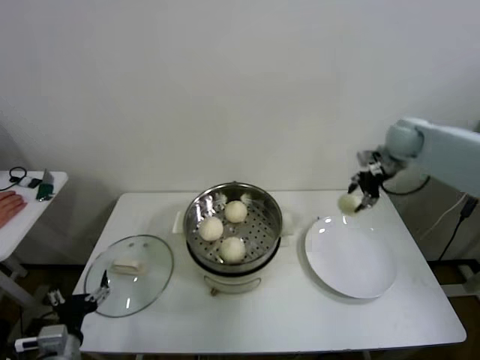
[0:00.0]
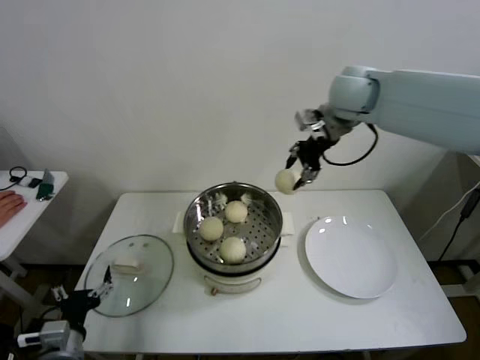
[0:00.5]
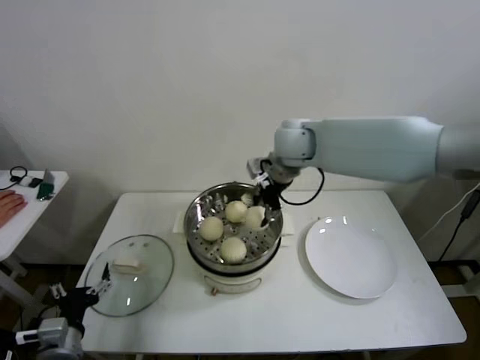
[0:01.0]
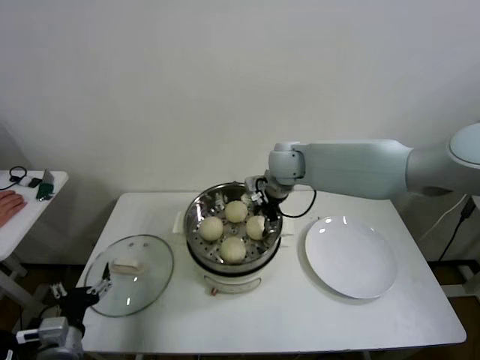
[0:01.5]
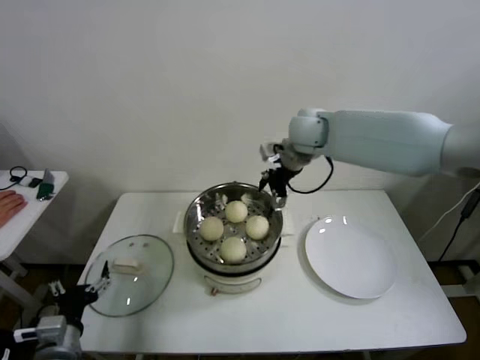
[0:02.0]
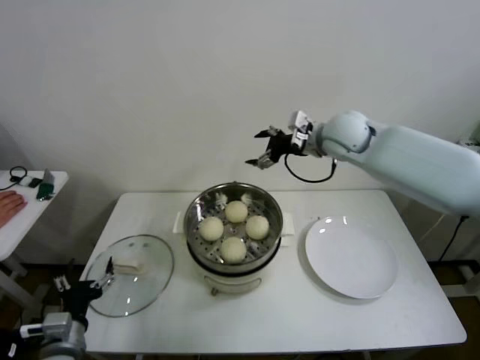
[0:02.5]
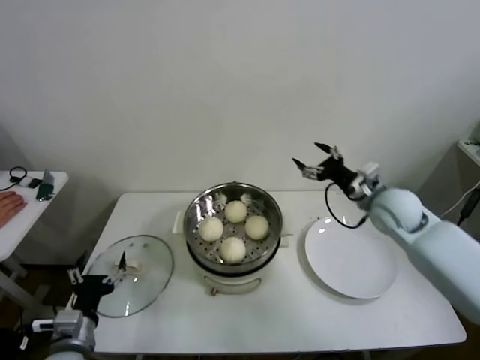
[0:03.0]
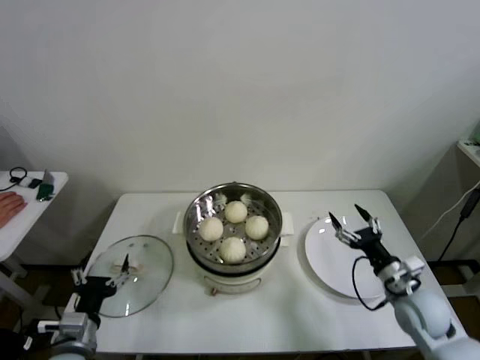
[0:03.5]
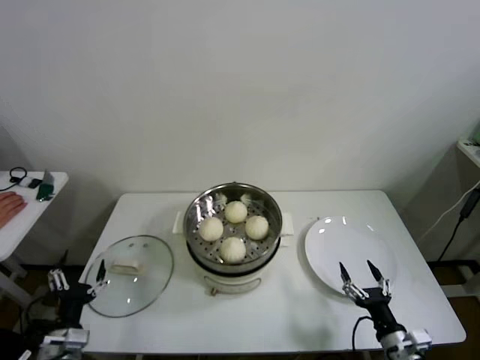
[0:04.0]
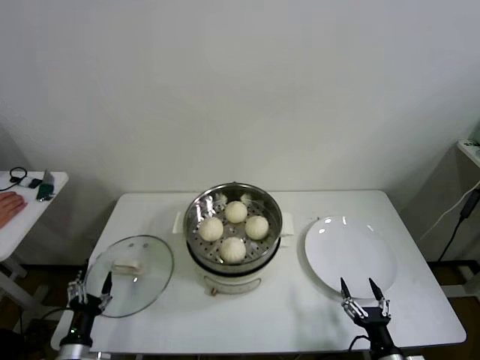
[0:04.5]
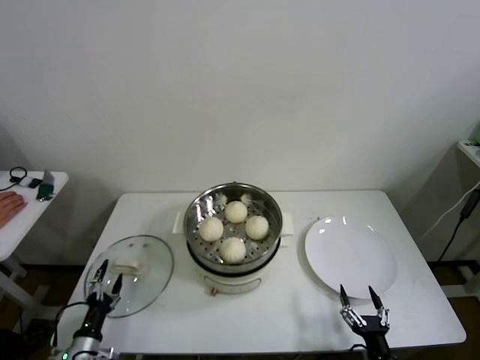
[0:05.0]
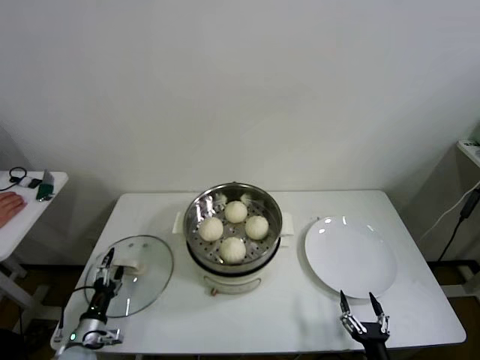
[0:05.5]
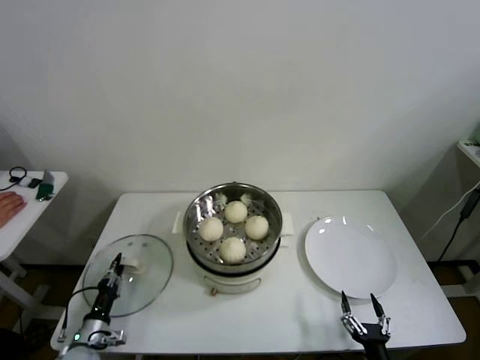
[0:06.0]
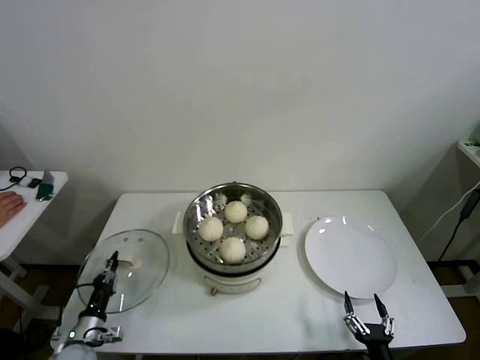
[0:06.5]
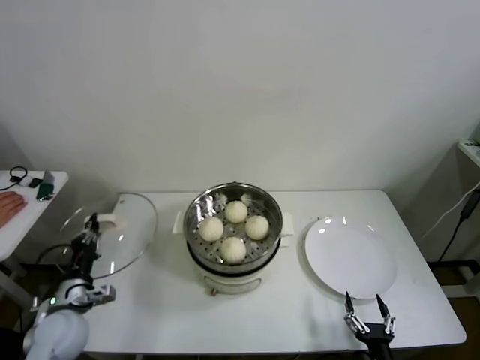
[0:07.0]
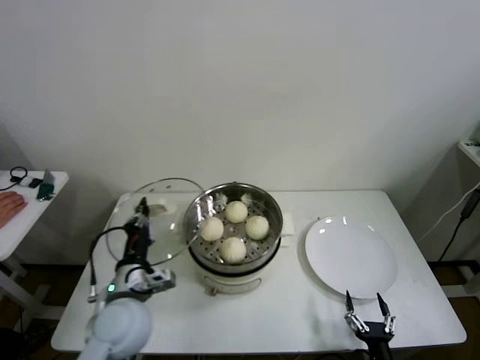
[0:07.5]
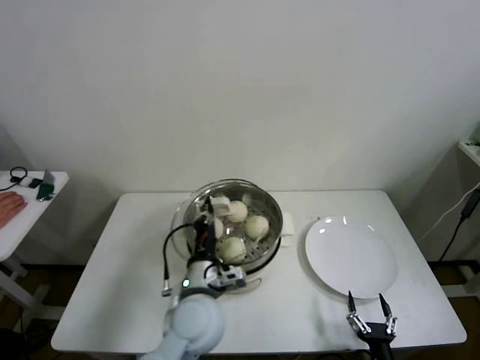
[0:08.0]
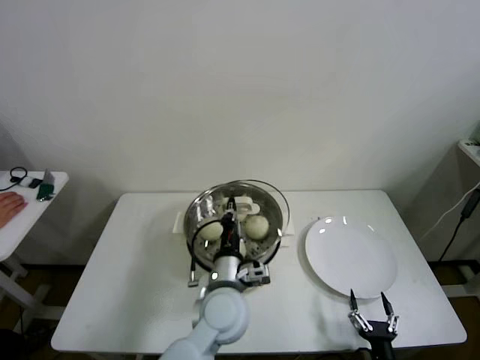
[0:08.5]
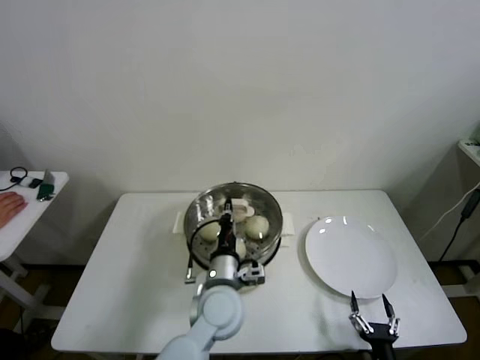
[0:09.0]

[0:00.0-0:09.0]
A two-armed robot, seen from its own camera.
Step, 0:00.0 to 0:01.5: Place the baozi on the steamer with right gripper.
Step, 0:02.0 to 0:06.0: Grasp the pot lid with left gripper.
0:00.0 to 0:02.0: The right gripper heads to the left, covering about 25 cm, and opens its fingers.
0:02.0 to 0:04.5: The right gripper moves backward, downward and to the right, approximately 60 cm. The left gripper moves downward, some 10 cm.
0:04.5 to 0:07.0: The left gripper is displaced upward and forward by about 15 cm, and closes its fingers.
0:07.0 to 0:09.0: The left gripper travels to the right by roughly 35 cm.

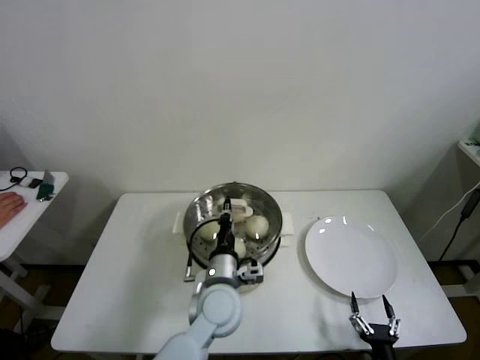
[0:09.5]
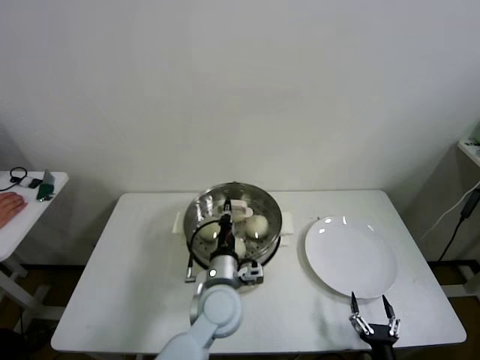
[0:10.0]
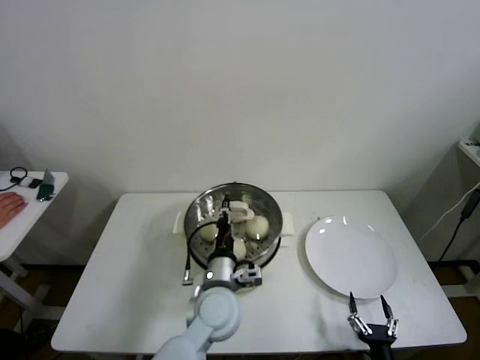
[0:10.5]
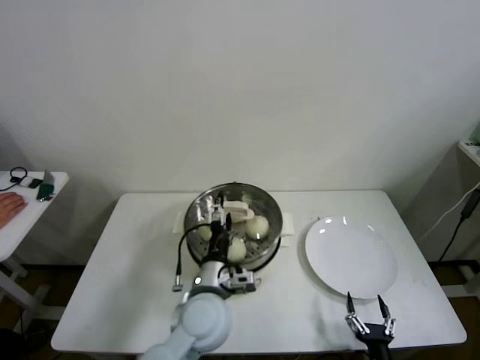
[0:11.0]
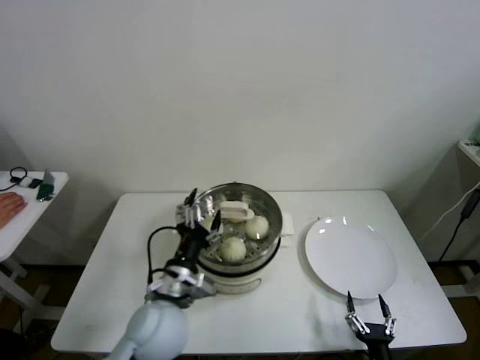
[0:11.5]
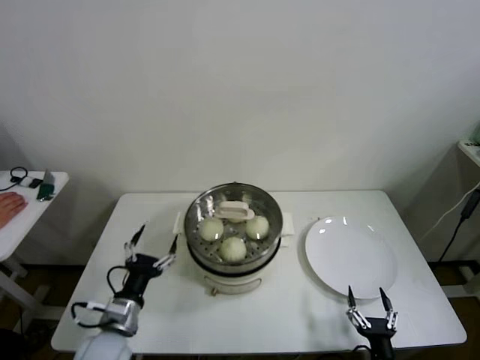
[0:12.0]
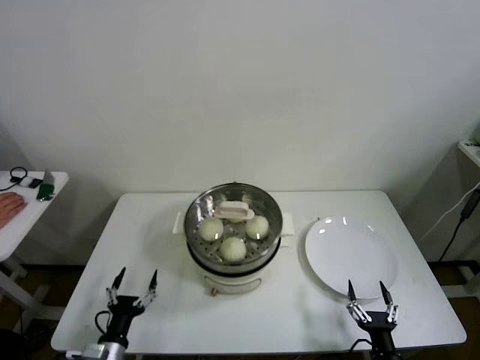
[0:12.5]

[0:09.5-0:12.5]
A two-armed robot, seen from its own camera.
0:09.5 to 0:11.0: The left gripper opens up.
0:11.0 to 0:12.5: The left gripper heads to the left, downward and backward, covering about 30 cm.

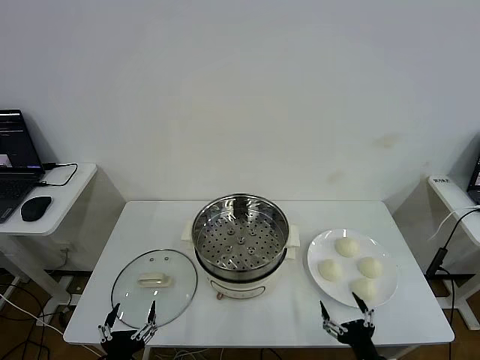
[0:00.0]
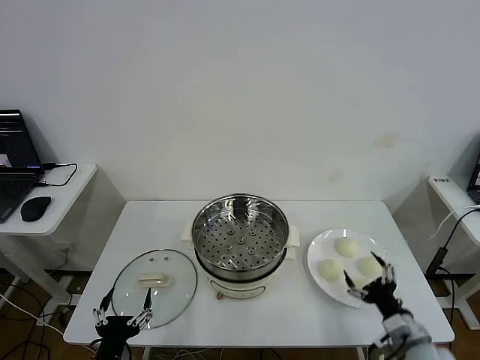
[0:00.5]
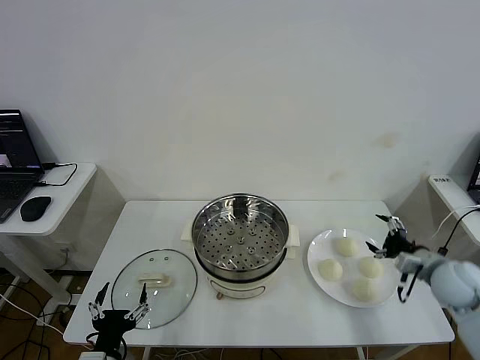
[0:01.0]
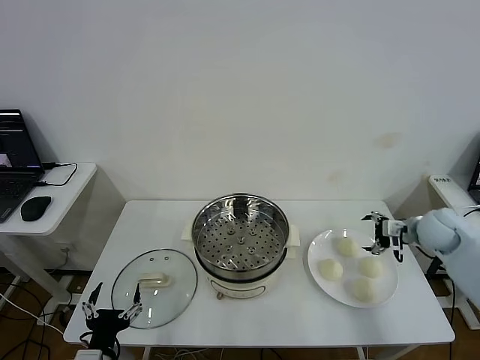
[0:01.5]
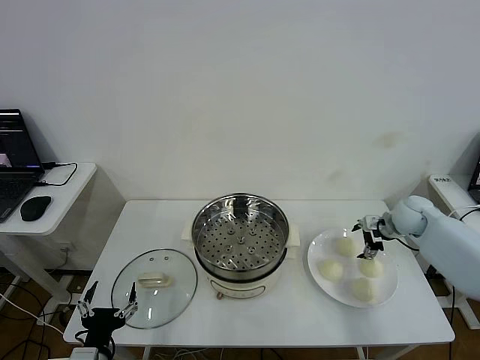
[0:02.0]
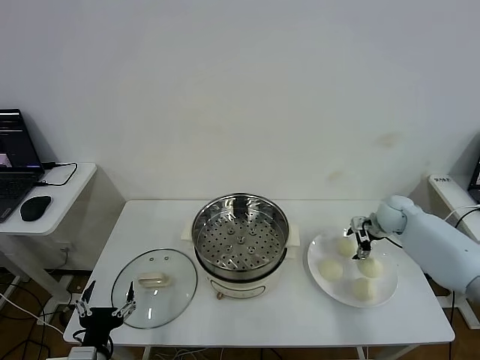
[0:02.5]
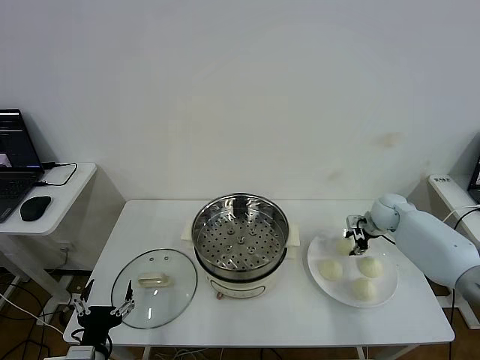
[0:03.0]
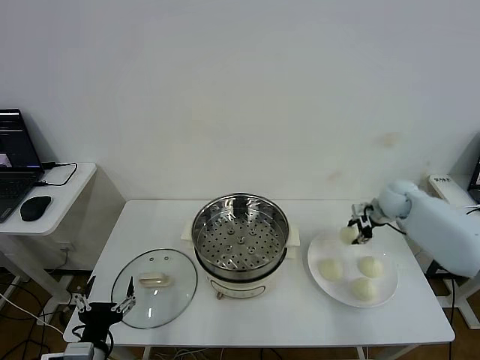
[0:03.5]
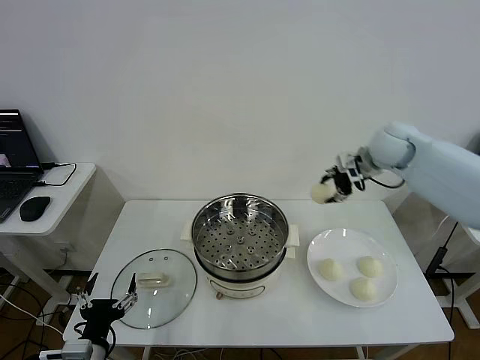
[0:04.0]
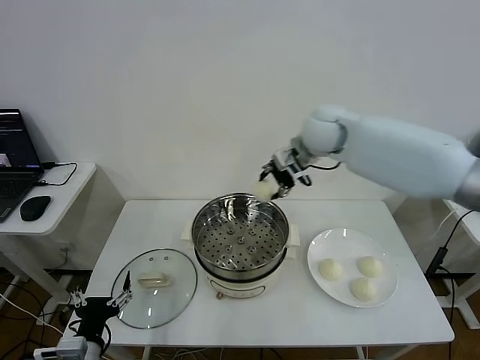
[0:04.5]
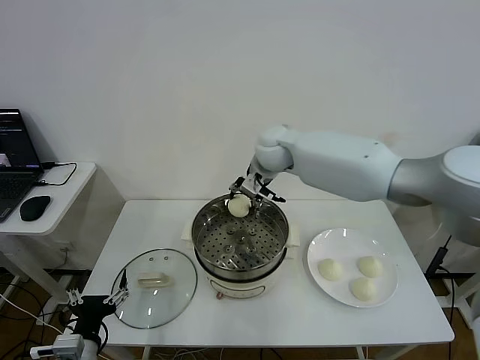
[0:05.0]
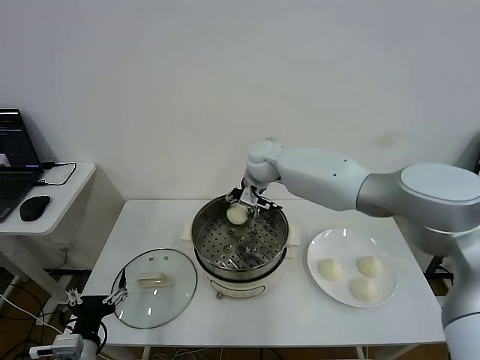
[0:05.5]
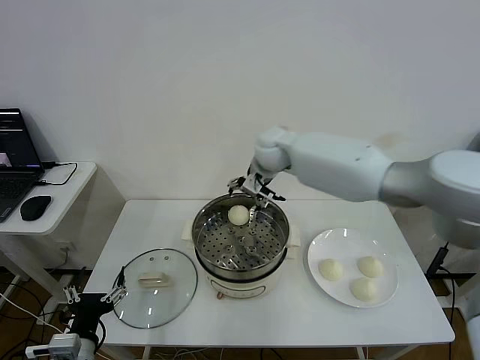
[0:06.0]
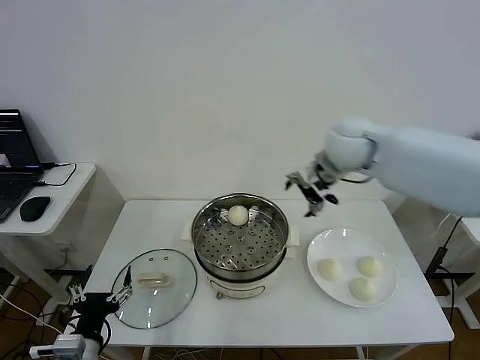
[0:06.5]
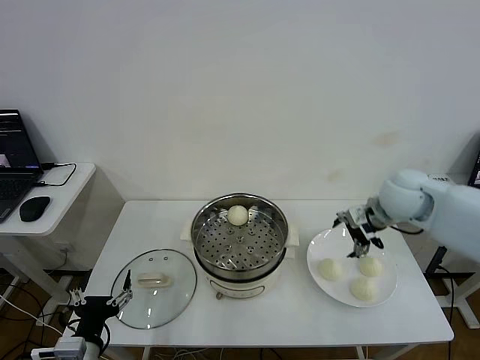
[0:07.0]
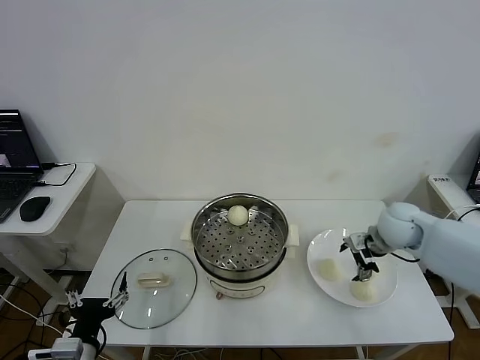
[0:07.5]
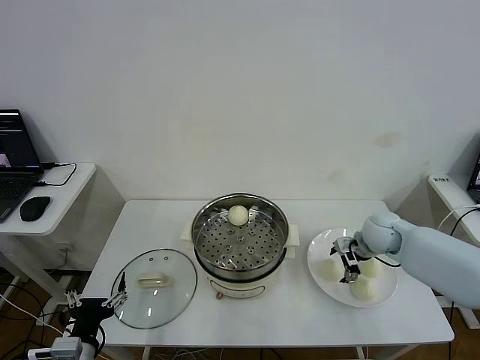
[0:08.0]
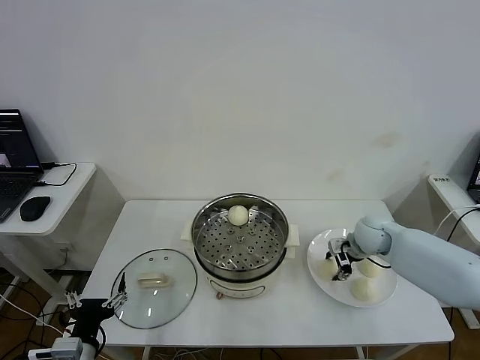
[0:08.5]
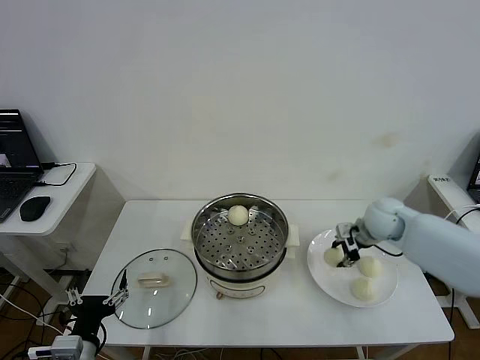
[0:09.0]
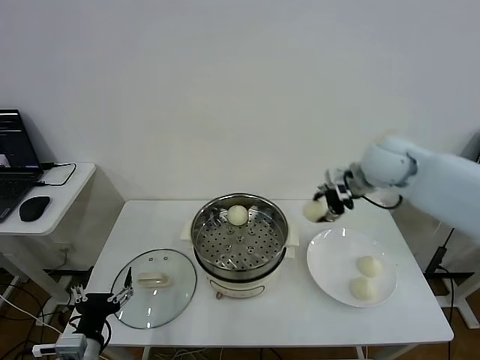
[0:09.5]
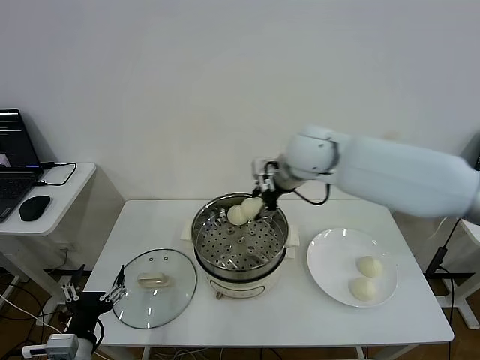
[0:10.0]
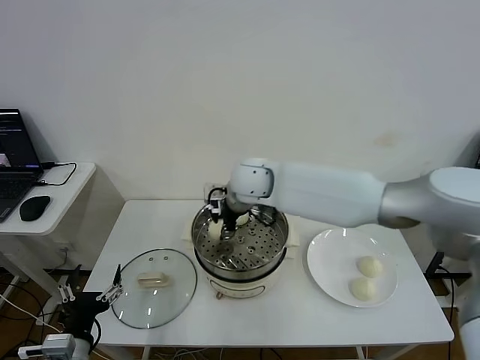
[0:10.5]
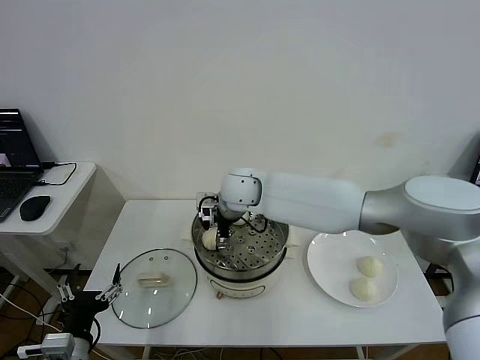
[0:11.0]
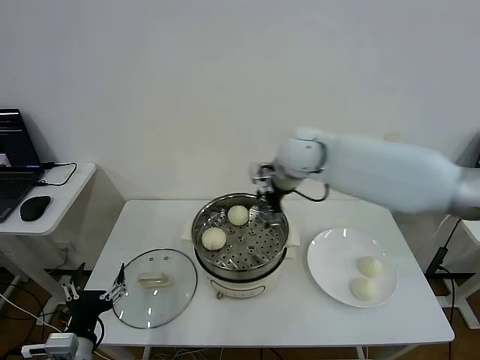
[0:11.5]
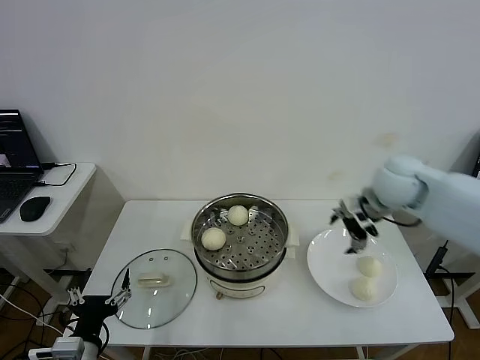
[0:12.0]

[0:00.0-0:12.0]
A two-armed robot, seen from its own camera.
Step, 0:00.0 to 0:02.5: Grasp the baozi in the plate with right gripper.
Step, 0:03.0 to 0:05.5: Place the baozi on the steamer with right gripper.
Step, 0:06.0 to 0:08.0: Grasp the baozi in the plate with right gripper.
Step, 0:09.0 to 0:10.5: Place the baozi on the steamer with right gripper.
0:02.0 to 0:04.0: The right gripper heads upward and to the left, covering some 25 cm, and closes up.
0:04.0 to 0:06.0: The right gripper is displaced to the left by some 20 cm, and opens its fingers.
0:06.0 to 0:08.0: The right gripper travels to the right, downward and backward by about 35 cm.
0:08.0 to 0:10.0: The right gripper shifts roughly 30 cm to the left and upward, and closes.
0:10.0 to 0:12.0: The right gripper travels to the right by approximately 20 cm, and opens up.

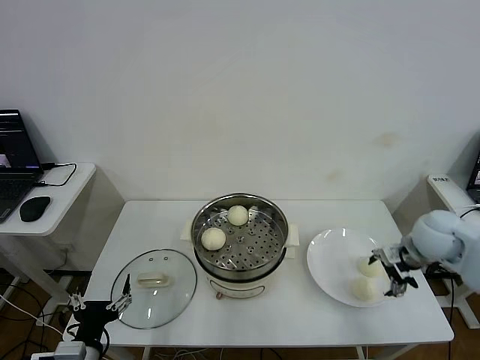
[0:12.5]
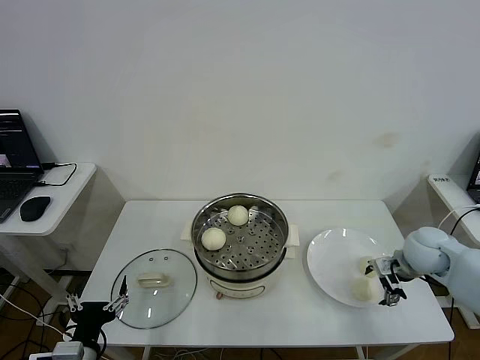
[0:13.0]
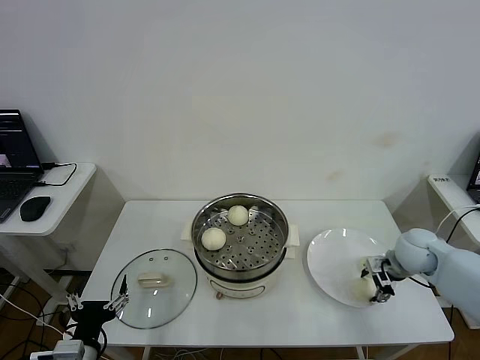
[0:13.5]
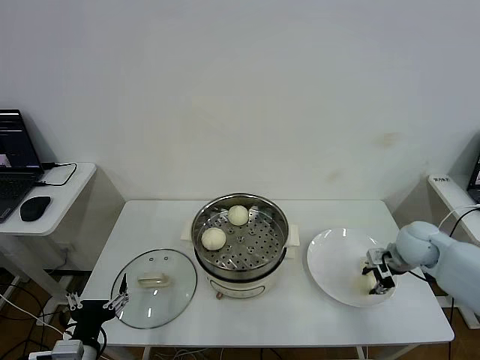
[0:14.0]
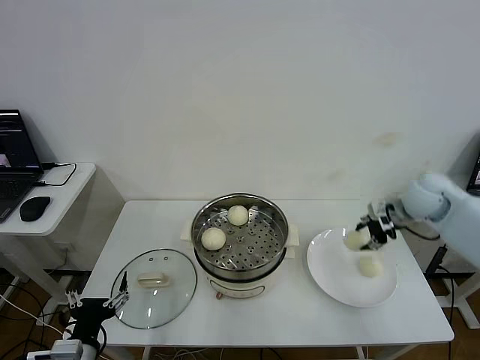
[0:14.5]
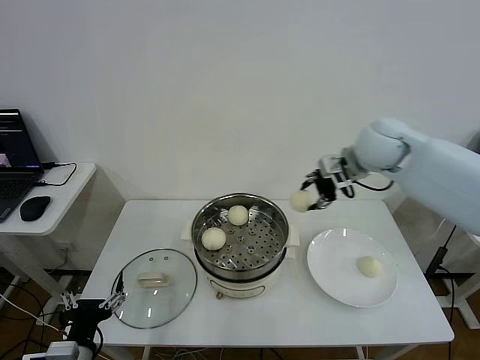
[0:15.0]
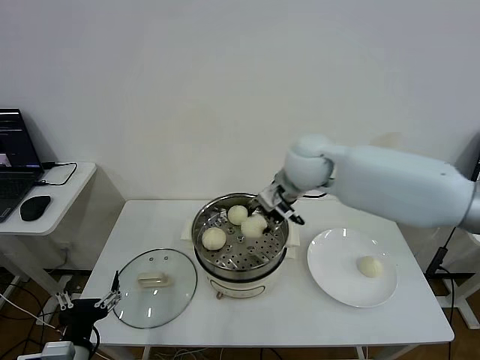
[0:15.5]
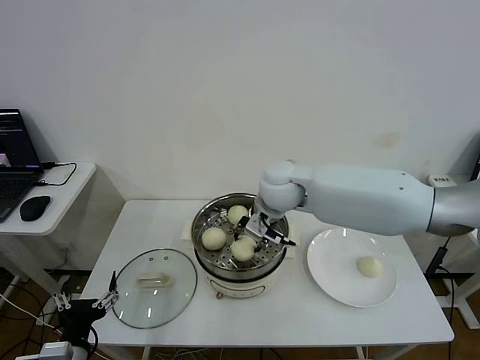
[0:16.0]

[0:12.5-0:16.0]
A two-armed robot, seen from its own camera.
0:12.5 to 0:14.5: The right gripper is displaced forward and upward by approximately 10 cm, and closes up.
0:14.5 to 0:16.0: The right gripper goes approximately 30 cm to the left.
